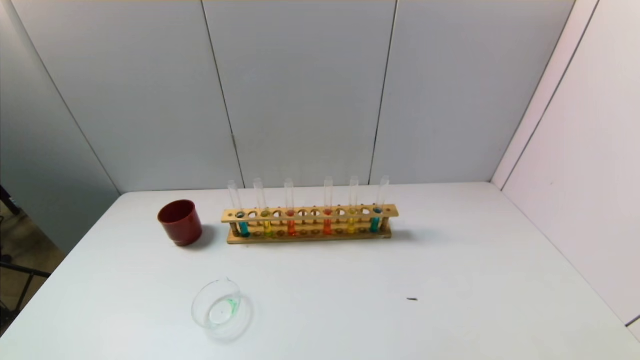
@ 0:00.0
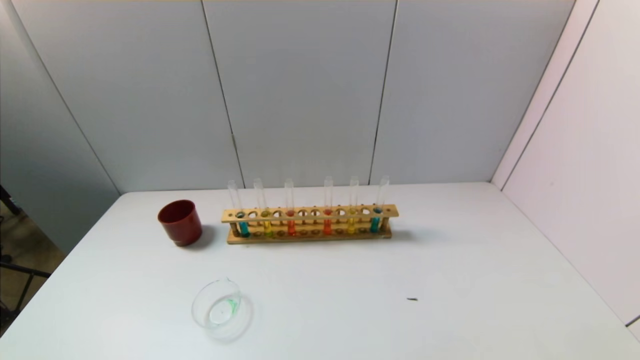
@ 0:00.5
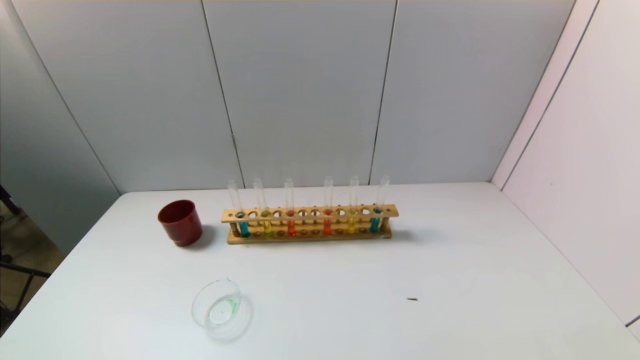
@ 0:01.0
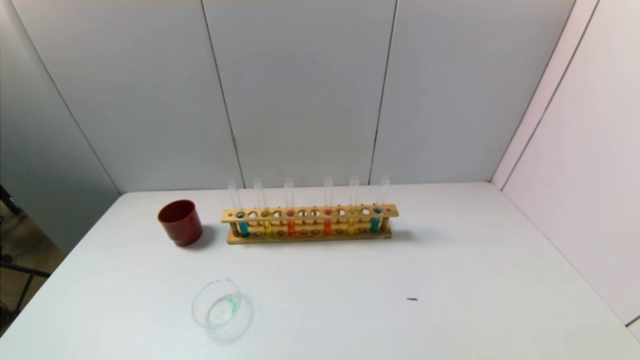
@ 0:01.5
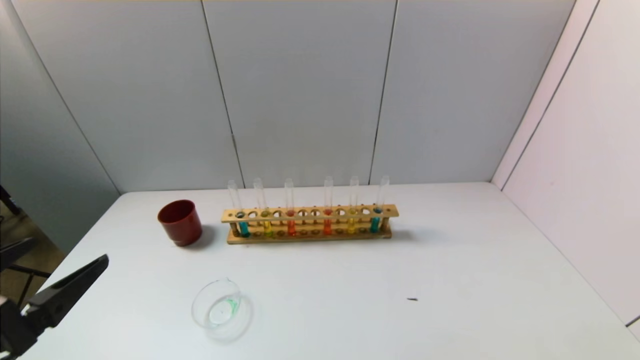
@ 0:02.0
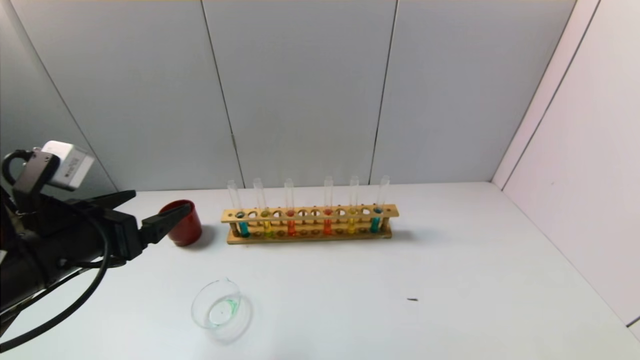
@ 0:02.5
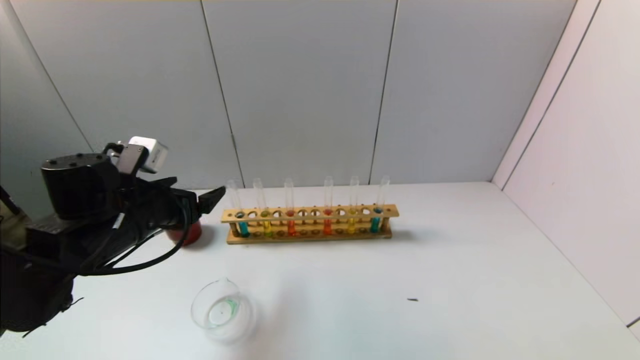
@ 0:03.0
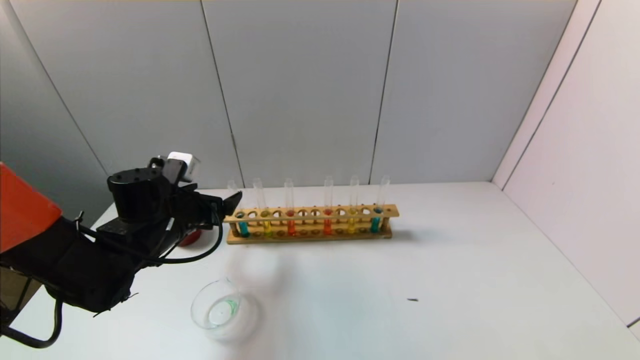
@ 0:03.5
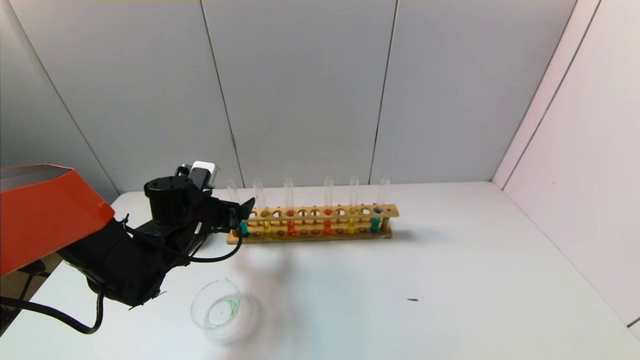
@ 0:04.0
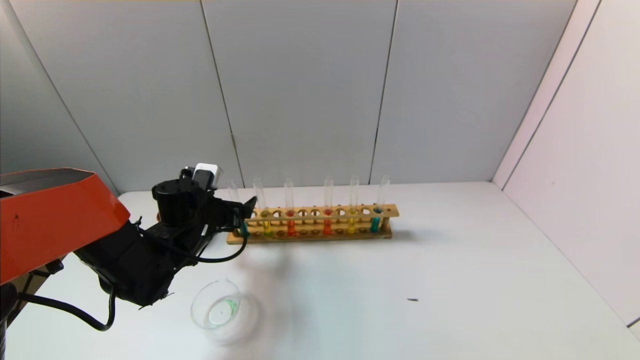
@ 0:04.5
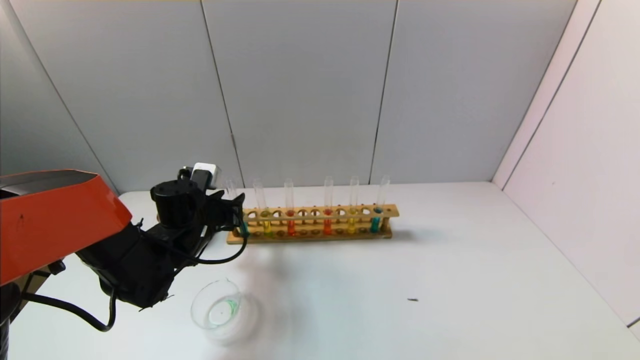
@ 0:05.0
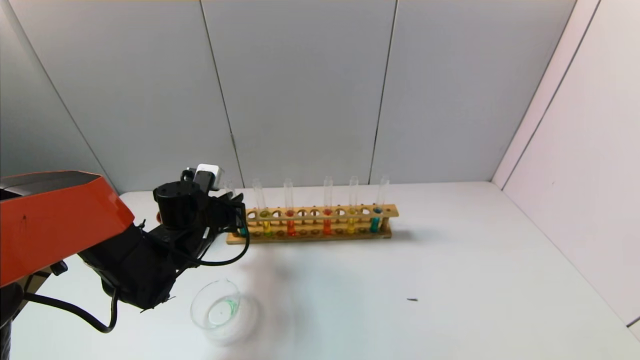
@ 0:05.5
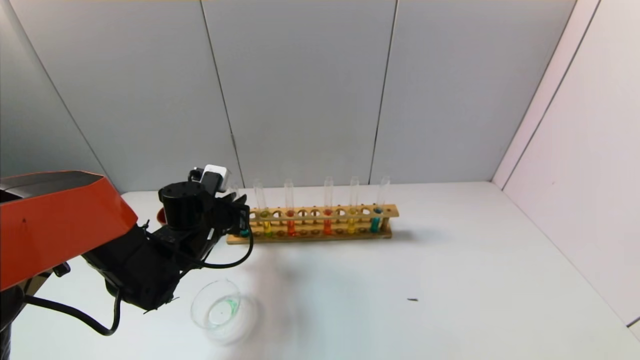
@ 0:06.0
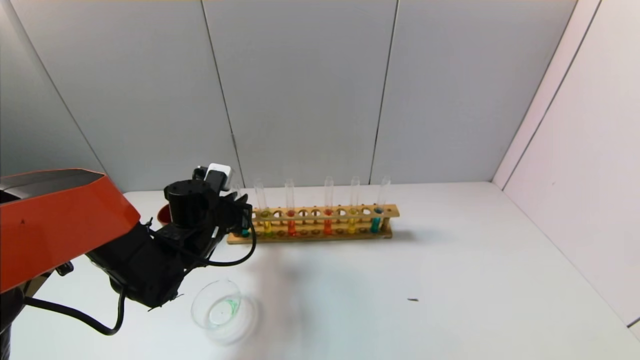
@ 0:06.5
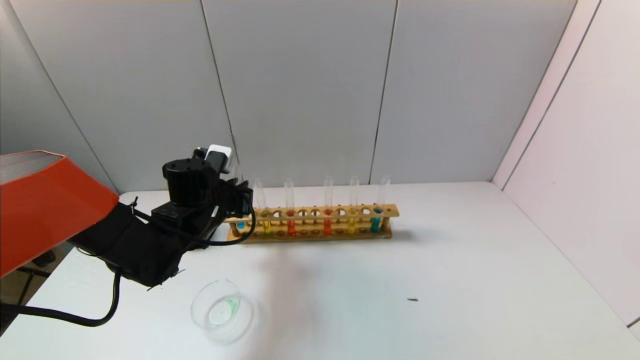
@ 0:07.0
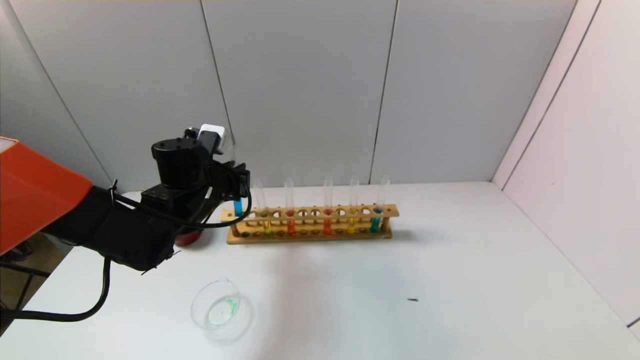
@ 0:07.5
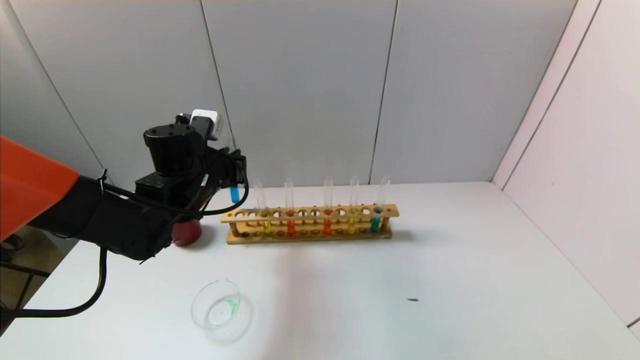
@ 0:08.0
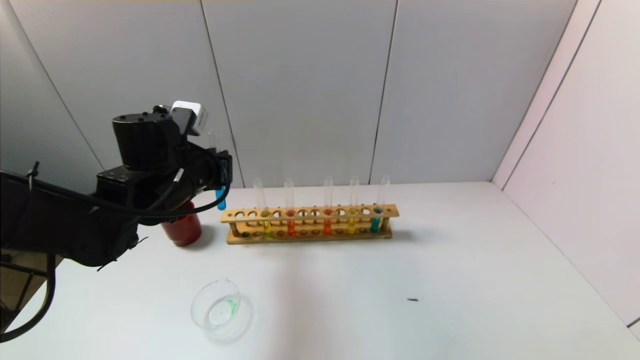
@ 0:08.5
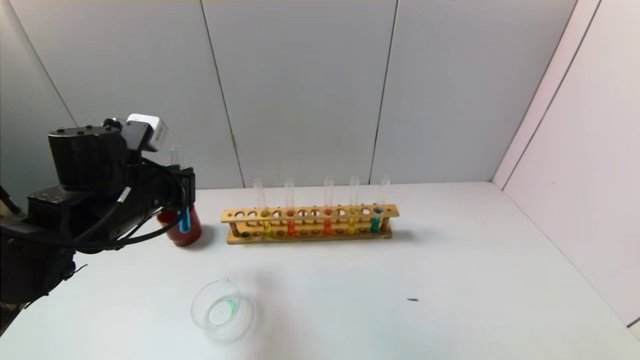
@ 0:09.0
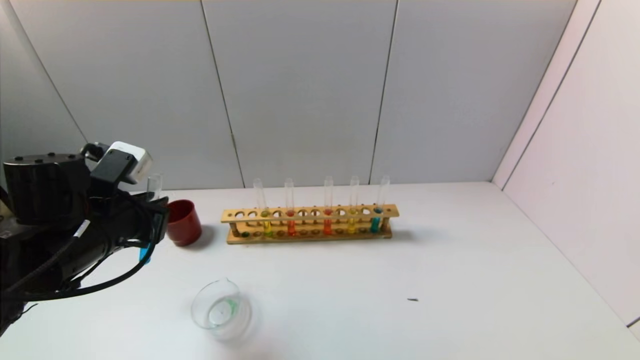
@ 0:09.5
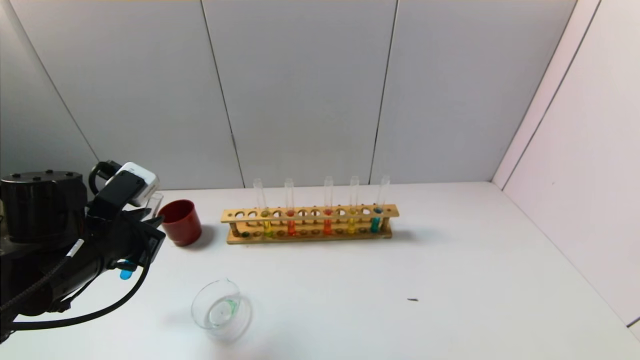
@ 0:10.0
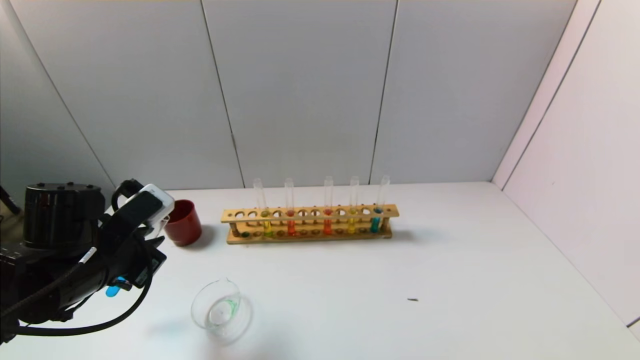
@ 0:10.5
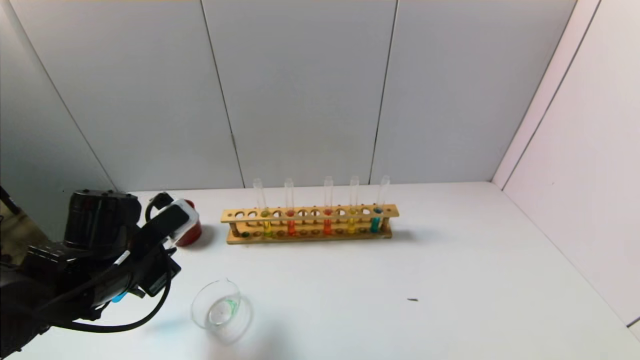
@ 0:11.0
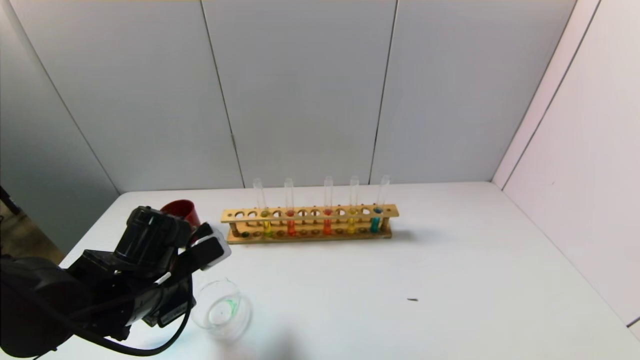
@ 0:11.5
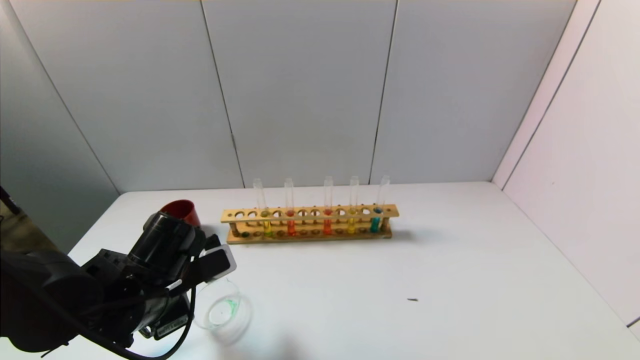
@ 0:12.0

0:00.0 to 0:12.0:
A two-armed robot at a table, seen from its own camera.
Task of the whole recording: pick up the test tube with yellow pigment and the test tube with blue pigment by grippers and pour them into the beaker.
Step, 0:00.0 to 0:05.0: Grasp the blue reagent with the left gripper.
0:00.0 to 0:02.0: The left gripper goes approximately 15 cm upward and forward.
0:02.0 to 0:04.0: The left gripper moves forward, roughly 25 cm.
0:04.0 to 0:06.0: The left gripper closes.
0:06.0 to 0:08.0: The left gripper goes some 10 cm upward.
0:08.0 to 0:10.0: The left gripper moves backward and to the left, approximately 15 cm.
0:10.0 to 0:12.0: The left gripper goes about 10 cm to the right and downward.

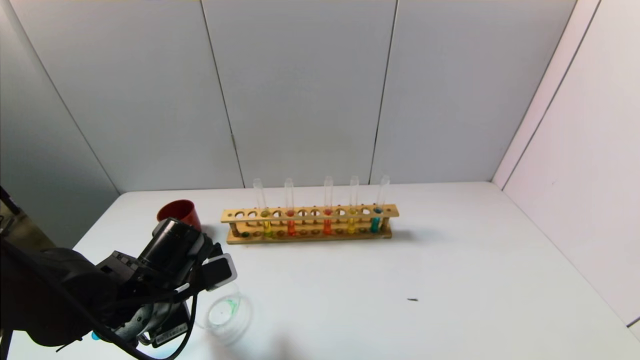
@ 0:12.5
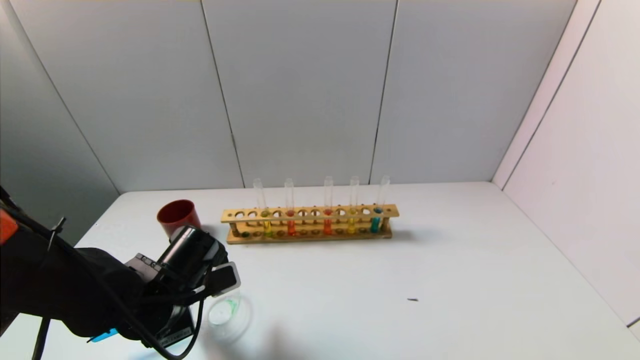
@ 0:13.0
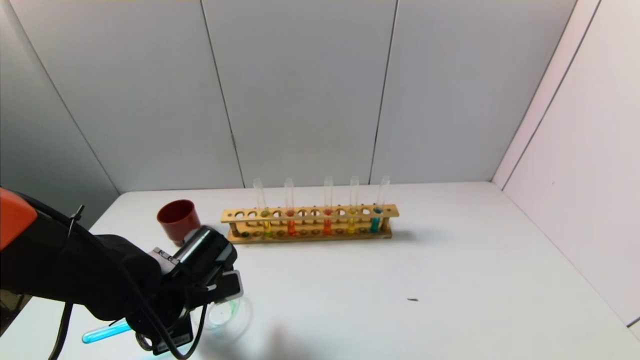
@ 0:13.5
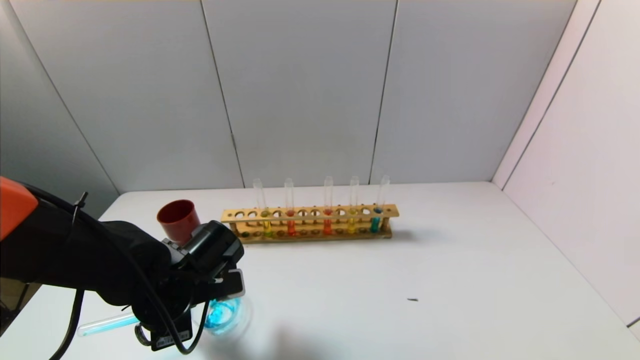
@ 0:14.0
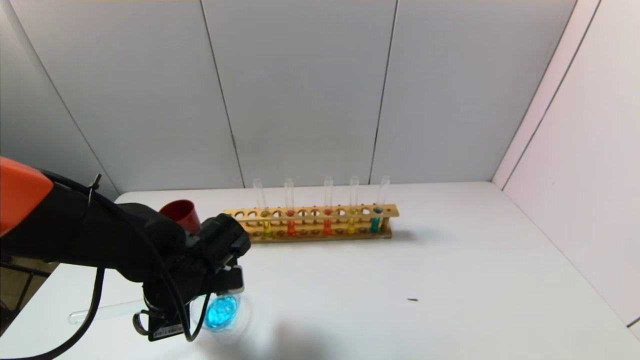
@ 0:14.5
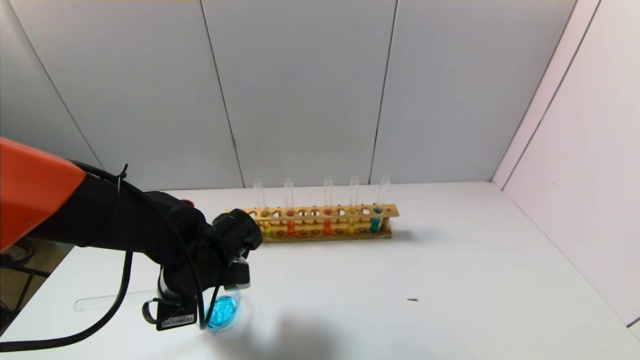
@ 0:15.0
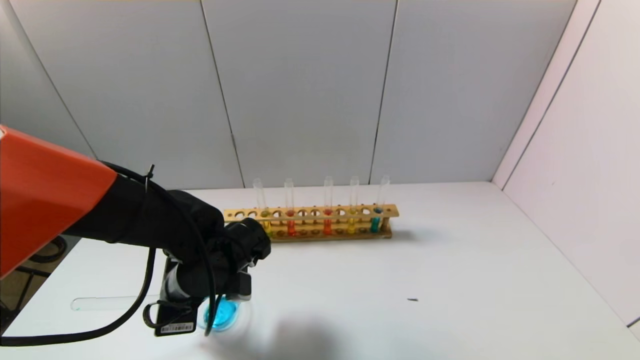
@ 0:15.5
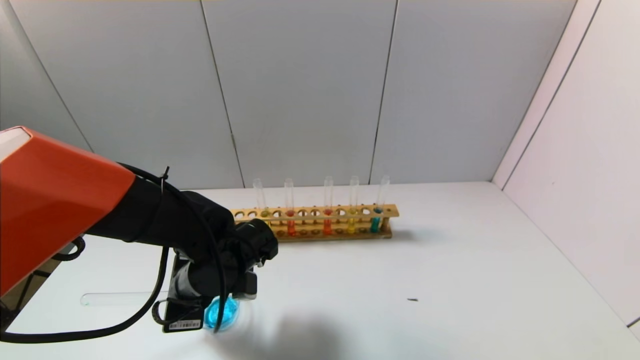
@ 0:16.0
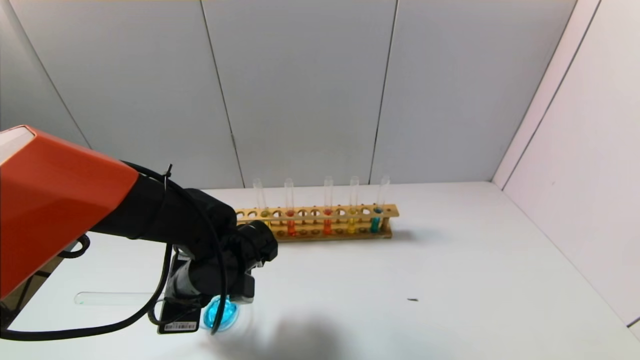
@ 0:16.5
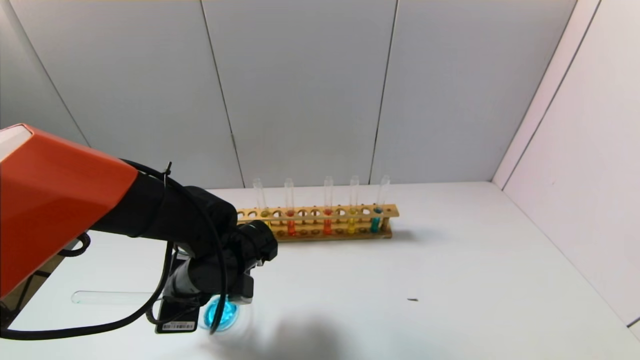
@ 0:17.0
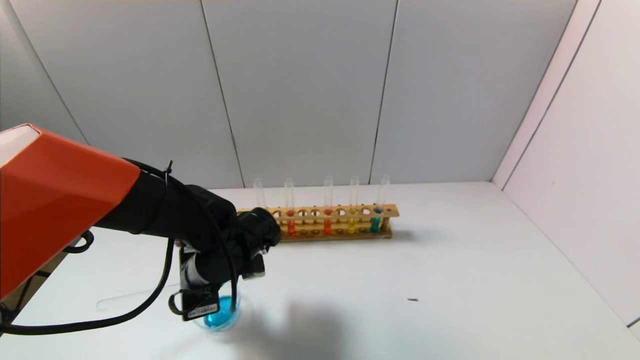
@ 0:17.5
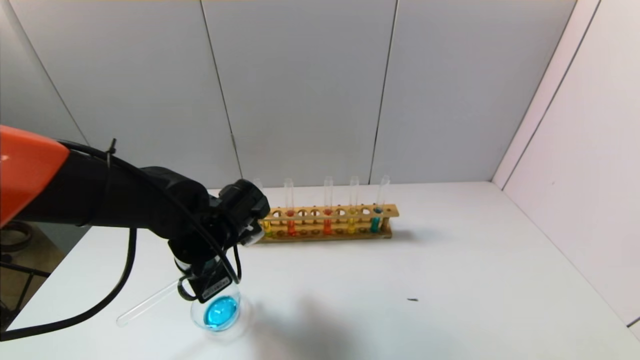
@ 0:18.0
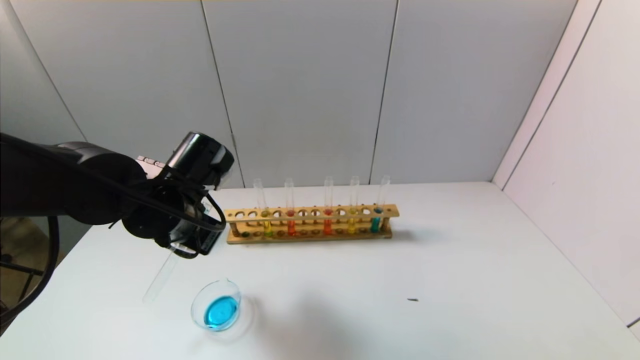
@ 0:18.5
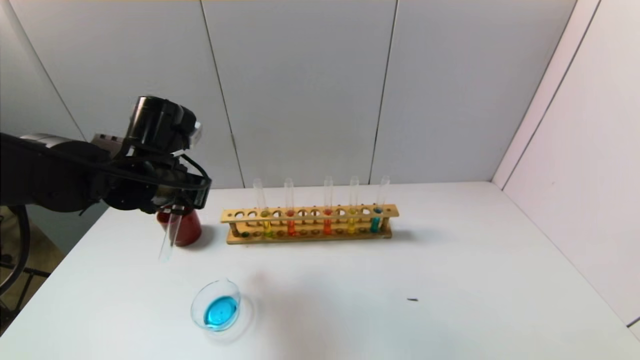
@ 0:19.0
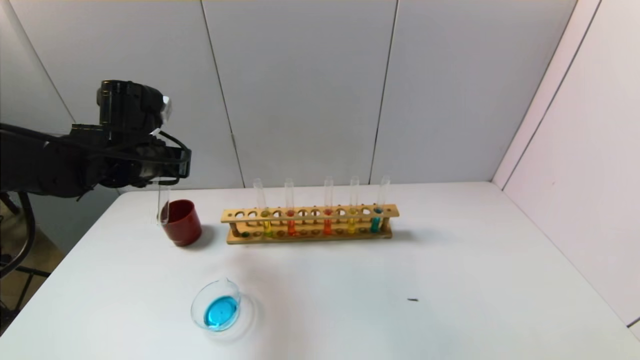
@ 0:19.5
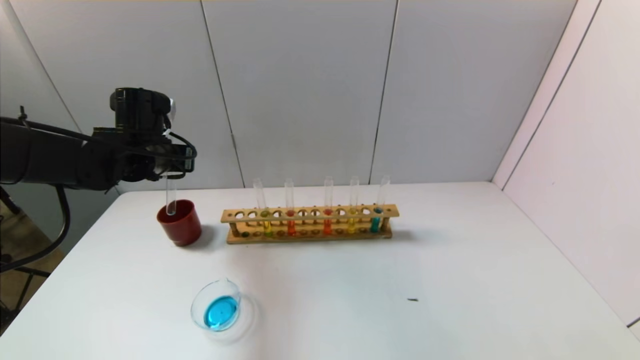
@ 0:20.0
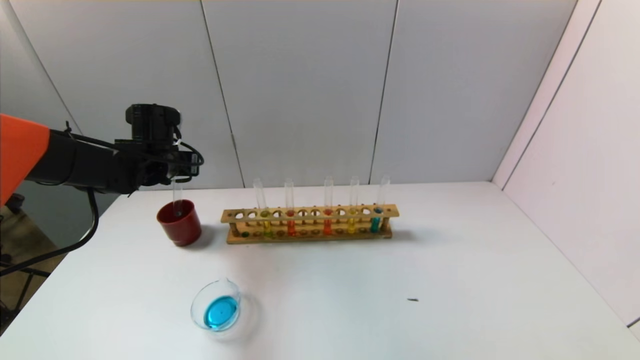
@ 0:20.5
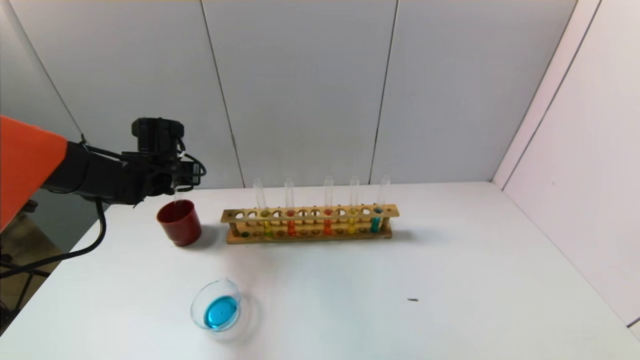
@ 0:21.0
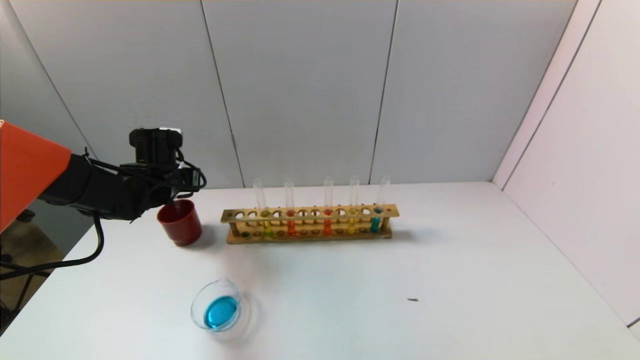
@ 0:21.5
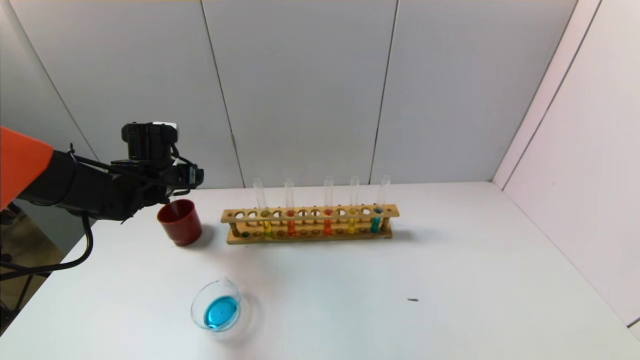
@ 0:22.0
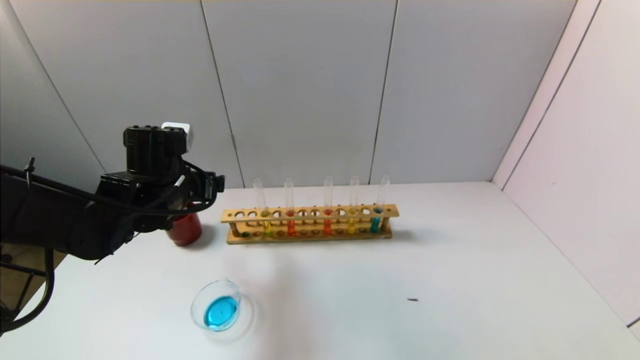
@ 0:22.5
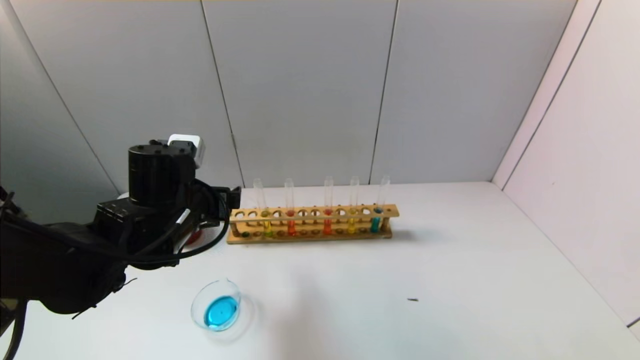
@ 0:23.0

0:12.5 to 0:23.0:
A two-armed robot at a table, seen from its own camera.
Task of the whole recording: pick up the test tube with yellow pigment and the test tube with blue pigment by grippers and pour them into the beaker.
Step, 0:12.5 to 0:15.5: Pour the blue reagent into the graduated cylinder with the left gripper.
Step, 0:16.0 to 0:22.0: Place the test tube into the brown cup with the left gripper.
0:14.5 to 0:16.5: The grippers move only a little.
0:16.5 to 0:19.0: The left gripper goes approximately 15 cm upward and to the left.
0:19.0 to 0:21.0: The left gripper heads forward, to the left and downward, covering some 15 cm.
0:21.0 to 0:23.0: The left gripper shifts approximately 15 cm backward and to the right, and opens up.
